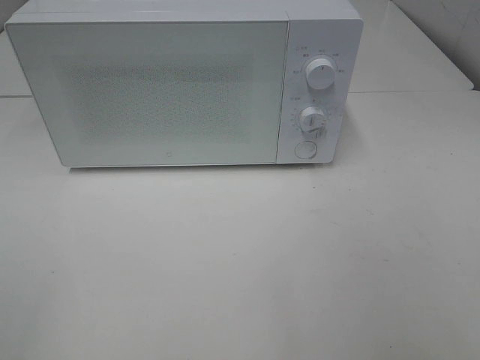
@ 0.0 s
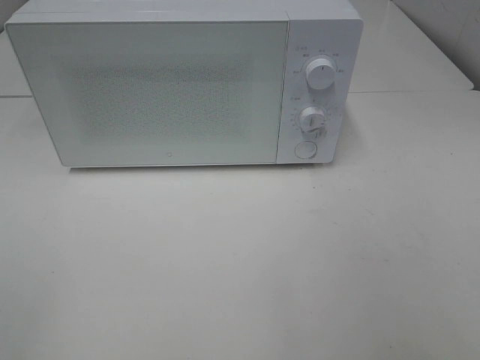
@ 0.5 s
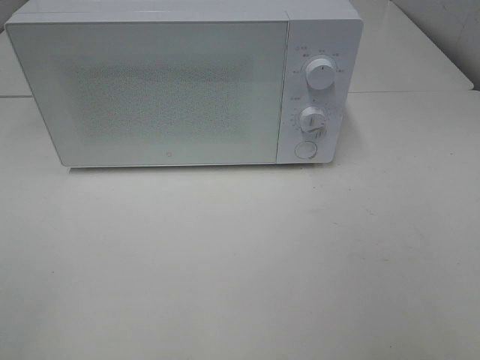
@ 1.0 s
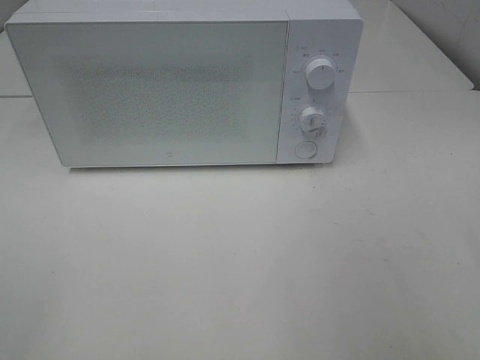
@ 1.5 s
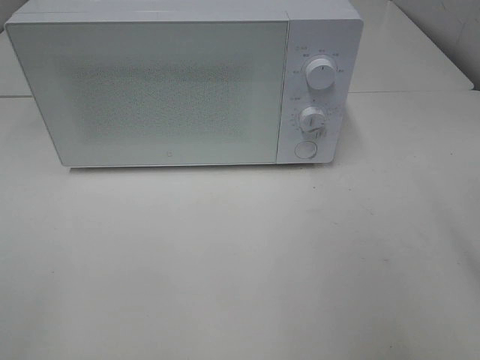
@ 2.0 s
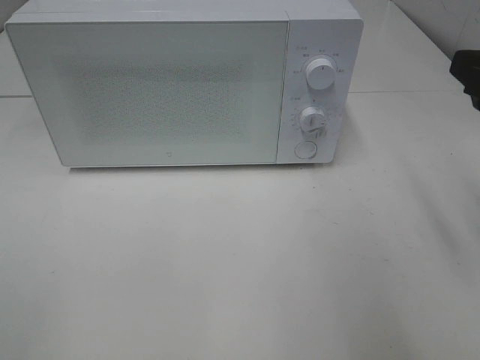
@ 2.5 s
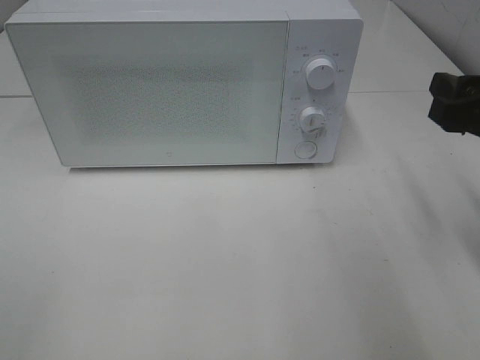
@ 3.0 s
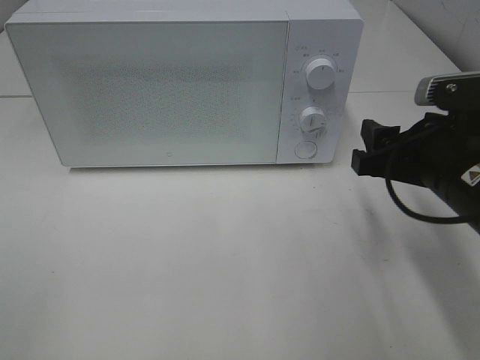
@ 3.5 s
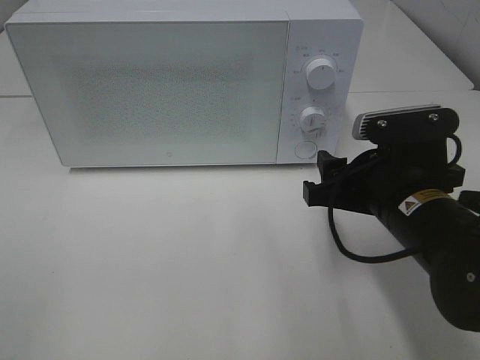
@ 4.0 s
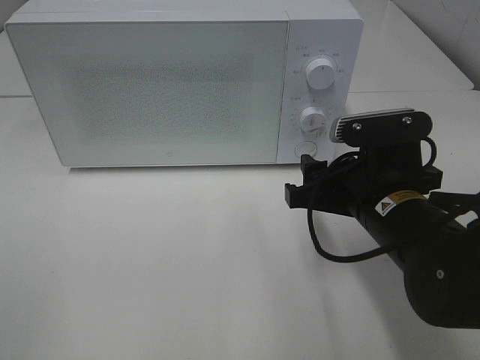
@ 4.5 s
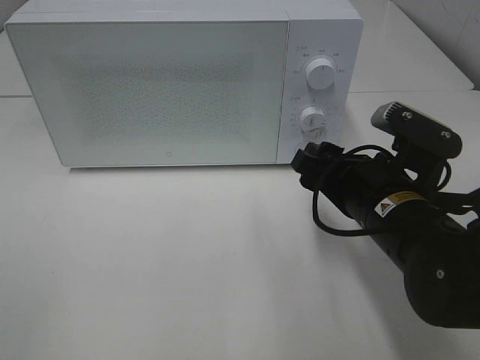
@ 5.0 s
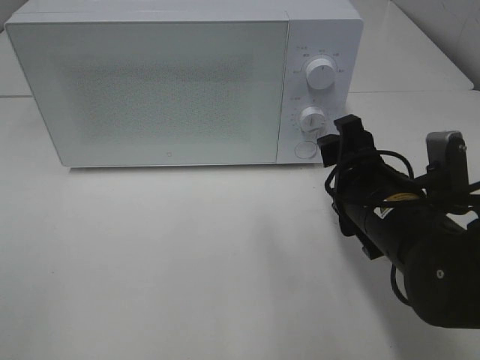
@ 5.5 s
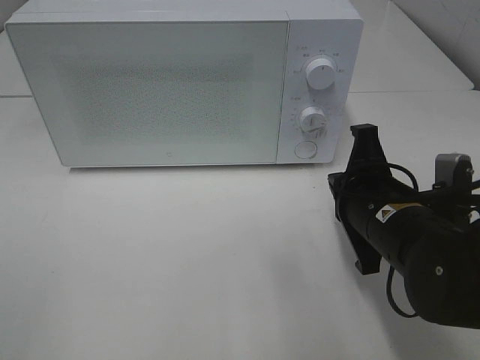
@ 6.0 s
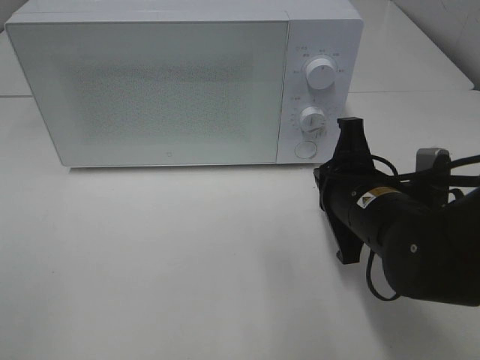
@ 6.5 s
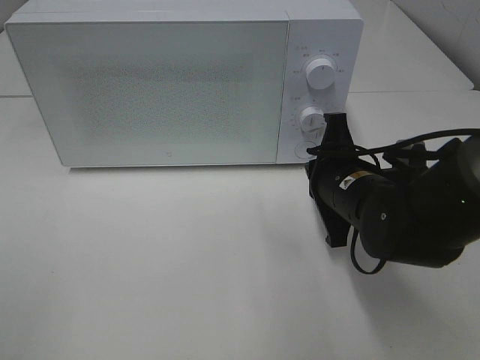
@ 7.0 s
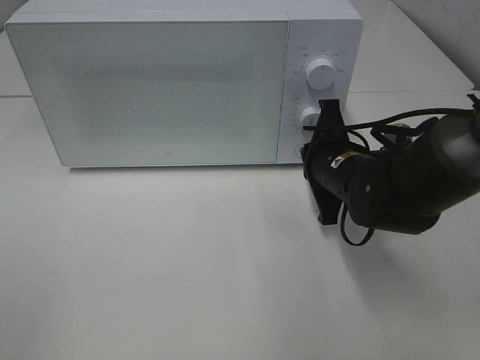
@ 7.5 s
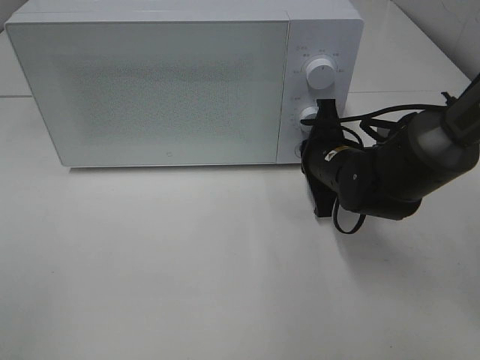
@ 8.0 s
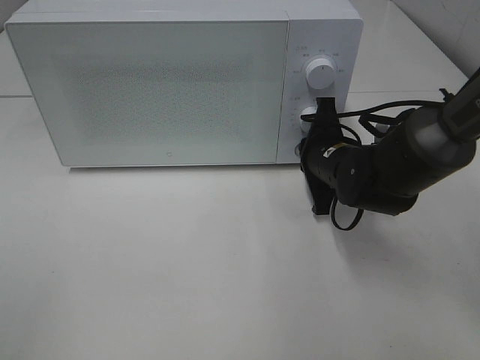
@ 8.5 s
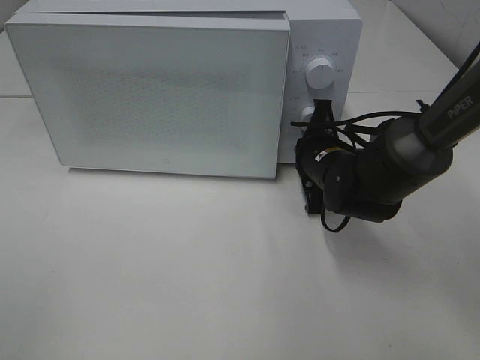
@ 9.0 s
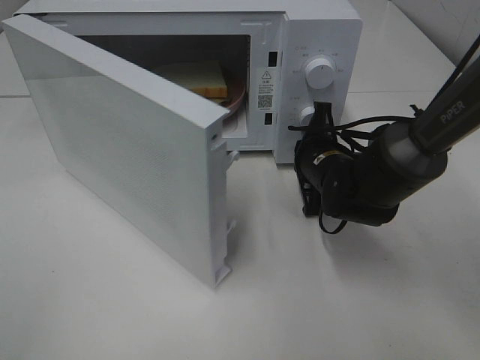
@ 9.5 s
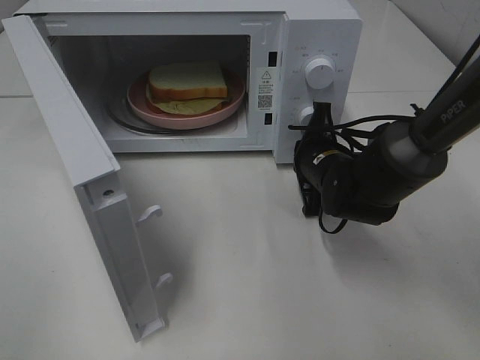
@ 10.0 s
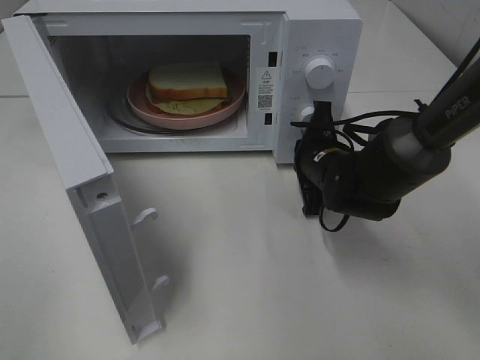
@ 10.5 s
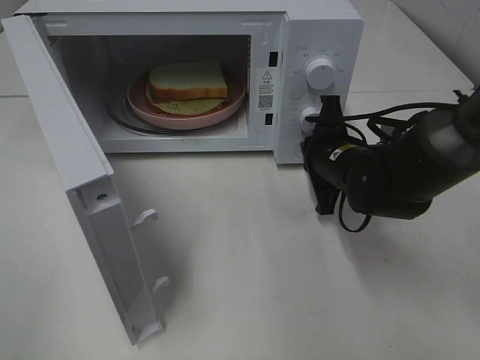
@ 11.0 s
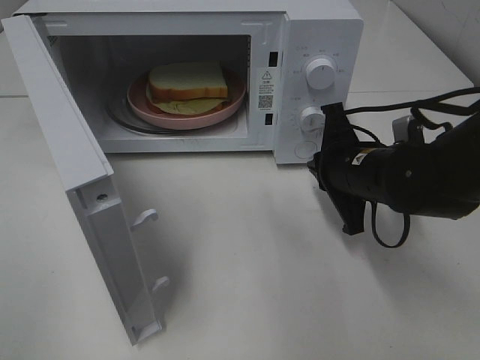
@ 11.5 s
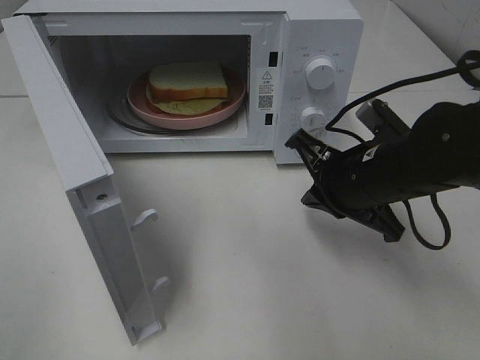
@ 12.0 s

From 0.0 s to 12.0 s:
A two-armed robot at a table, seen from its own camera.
Task of the whole recording: Heat Sandwich.
Step, from 0.0 s to 11.0 s: Right hand: press the switch.
From 2.0 s to 4.0 s: The right gripper heads downward, to the left and forward, covering about 20 cm.
From 4.0 s to 6.0 s: The right gripper closes up.
From 6.0 s to 8.0 s: The right gripper travels forward by about 10 cm.
From 10.0 s to 12.0 s: The right gripper shifts some 10 cm backward and upward.

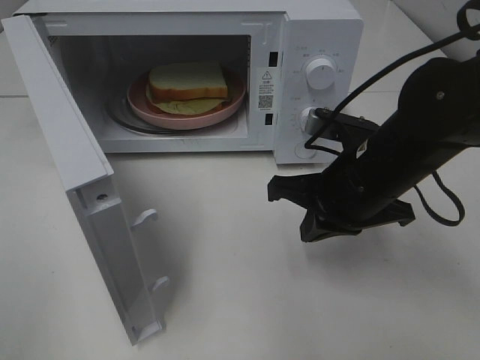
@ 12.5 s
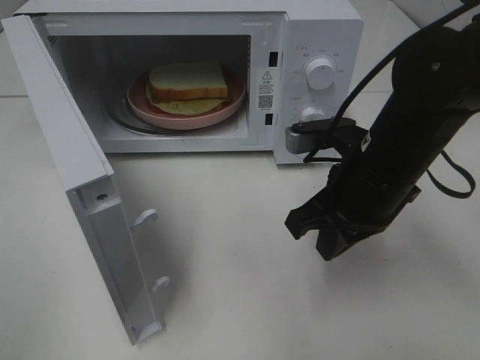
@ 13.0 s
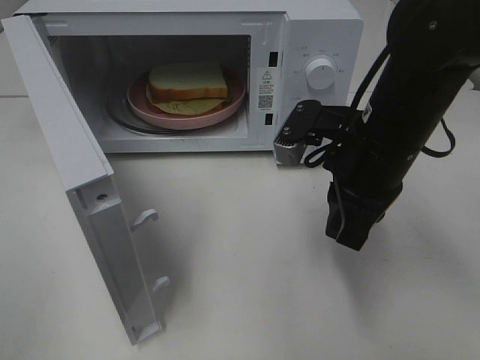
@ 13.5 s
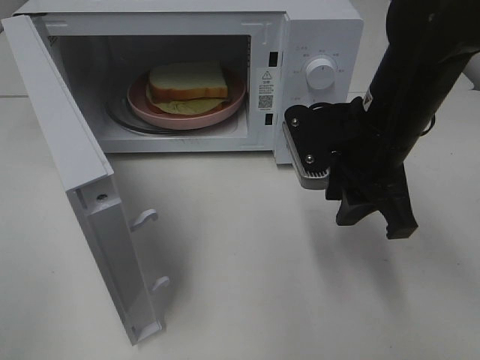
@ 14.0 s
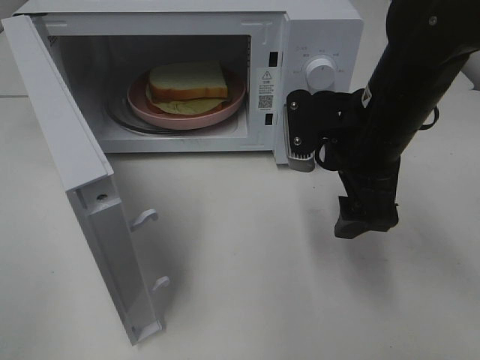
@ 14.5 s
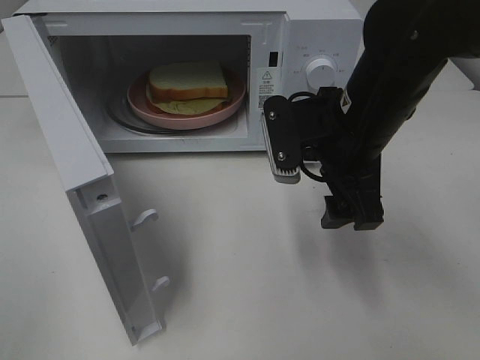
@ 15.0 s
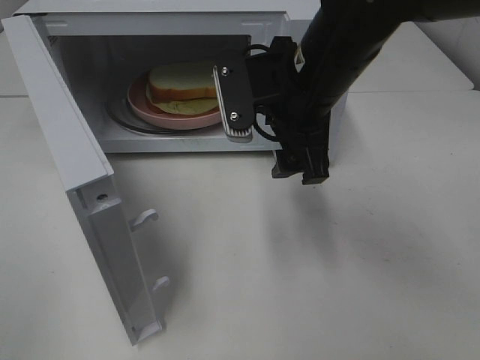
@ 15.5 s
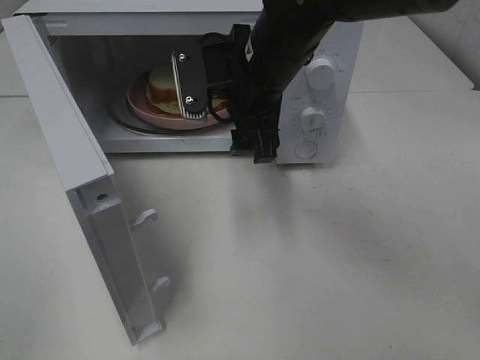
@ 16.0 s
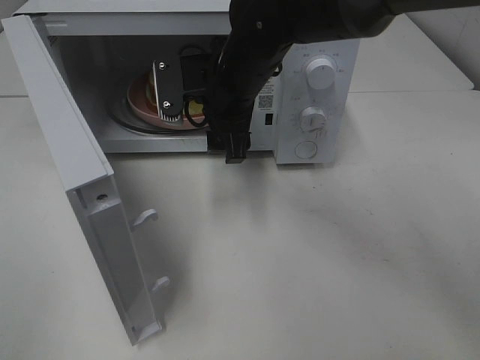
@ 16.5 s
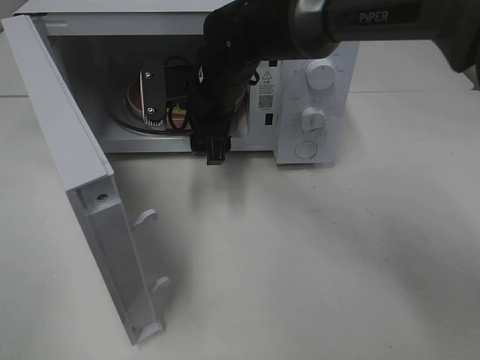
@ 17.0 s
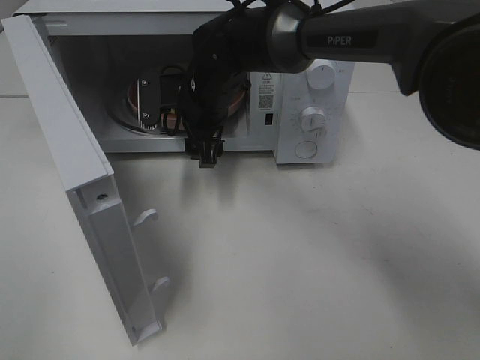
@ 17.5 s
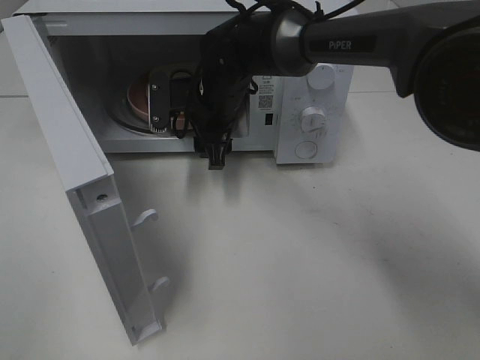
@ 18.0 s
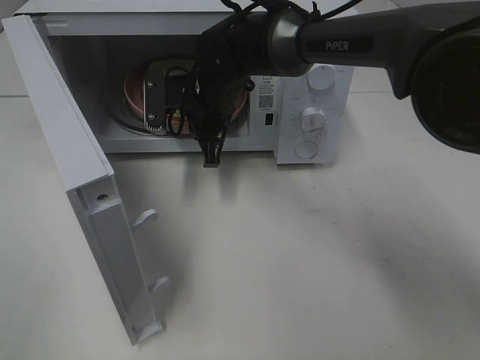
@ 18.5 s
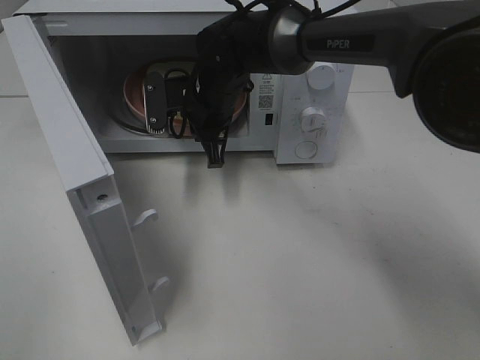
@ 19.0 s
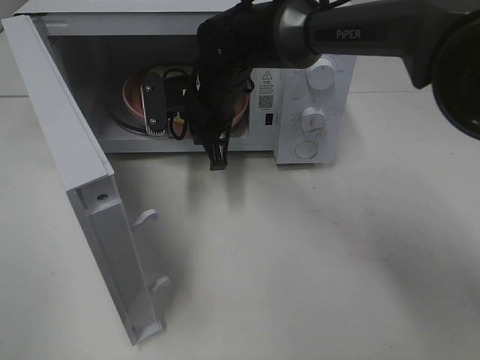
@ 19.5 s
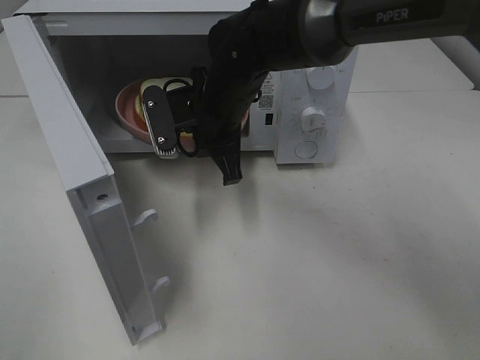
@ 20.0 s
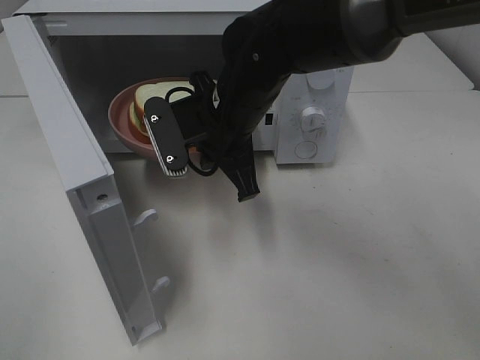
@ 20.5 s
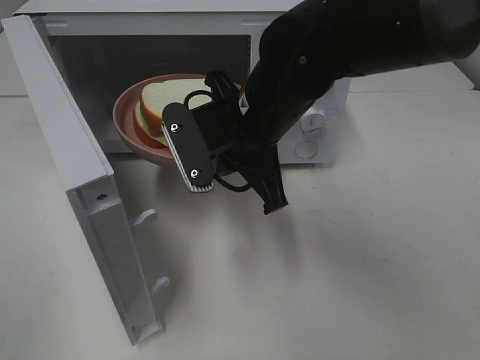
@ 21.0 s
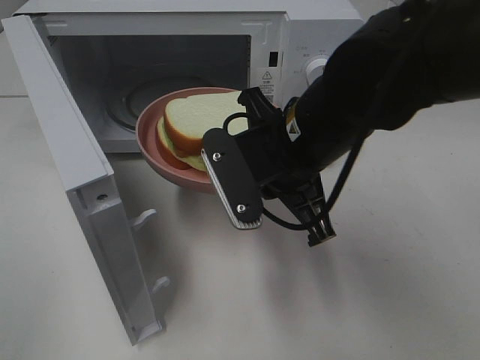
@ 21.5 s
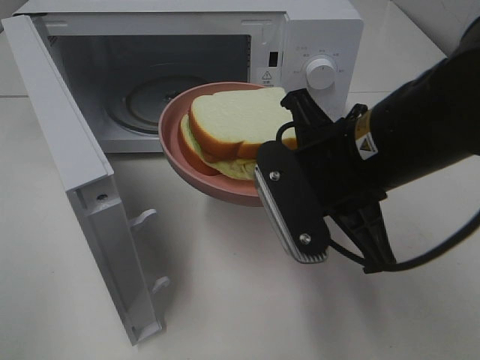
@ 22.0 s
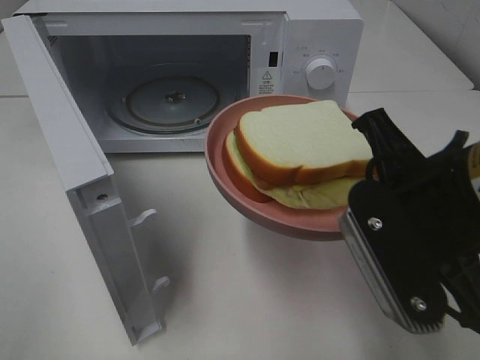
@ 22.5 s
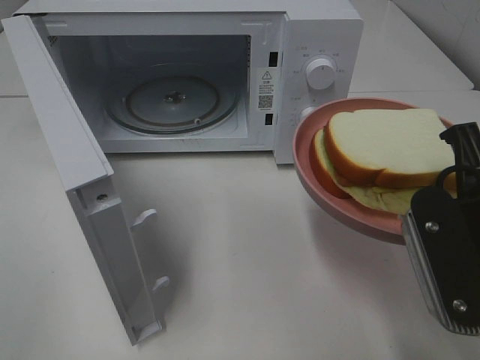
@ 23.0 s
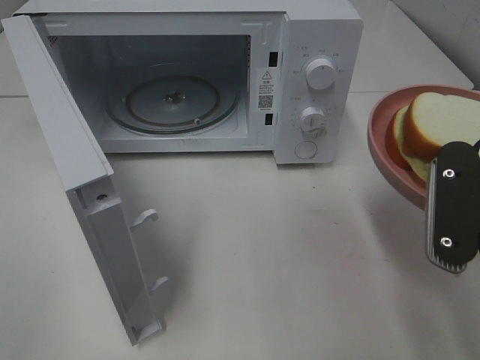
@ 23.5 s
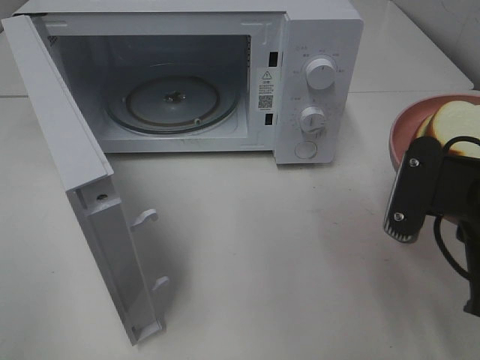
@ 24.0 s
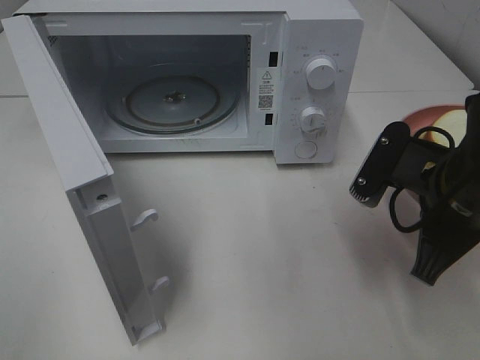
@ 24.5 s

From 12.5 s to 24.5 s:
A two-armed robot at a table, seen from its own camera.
Task of the whole recording: Heat Sandwich.
Step, from 12.5 s to 18.0 s: Right hand: grab the plate with the sandwich.
From 12.5 s to 14.5 s: The right gripper ends up about 5 cm from where it was, and opens its fingers.
From 14.5 s to 16.5 s: The right gripper travels to the left and forward by roughly 15 cm.
From 16.5 s to 18.5 s: The right gripper heads forward and downward, covering some 10 cm, and closes its fingers.
From 18.5 s to 20.5 s: The right gripper shifts some 10 cm backward.
From 20.5 s to 22.5 s: The right gripper travels backward and to the right by some 25 cm.
From 22.5 s to 24.5 s: The right gripper heads downward and forward, covering about 10 cm.

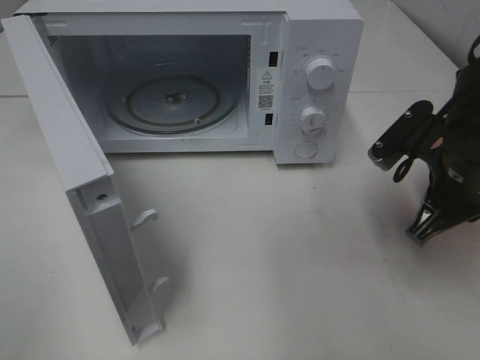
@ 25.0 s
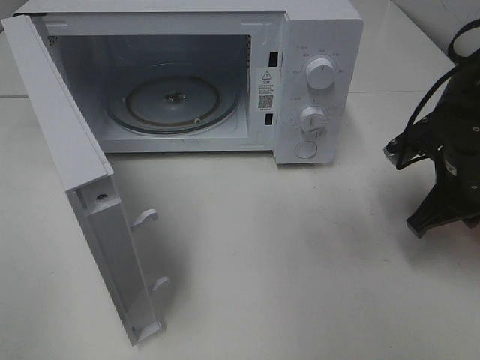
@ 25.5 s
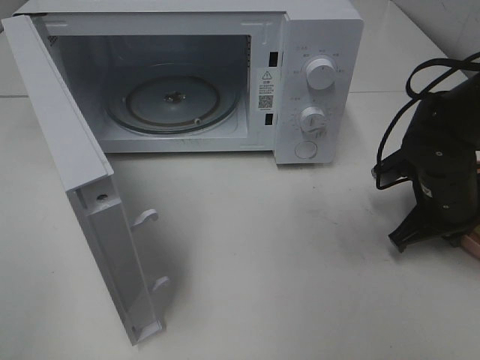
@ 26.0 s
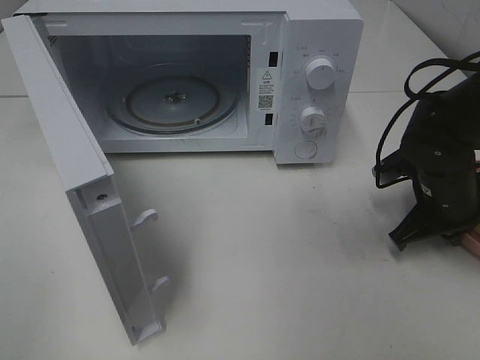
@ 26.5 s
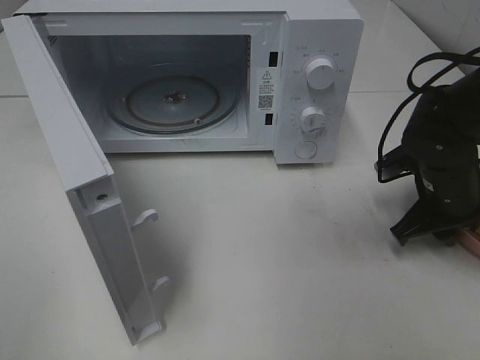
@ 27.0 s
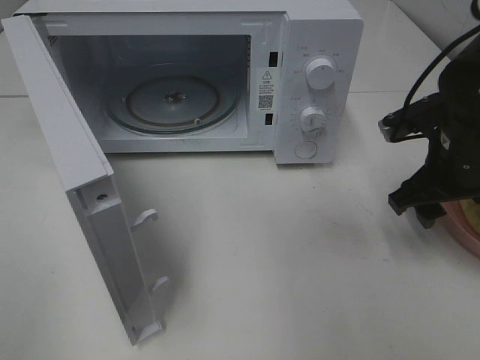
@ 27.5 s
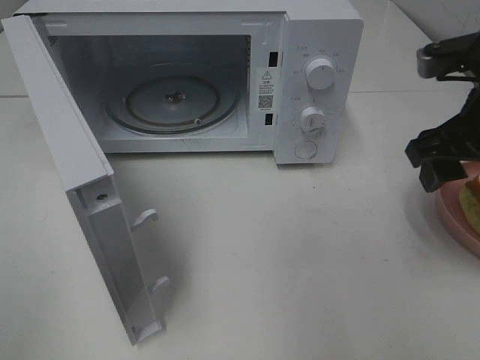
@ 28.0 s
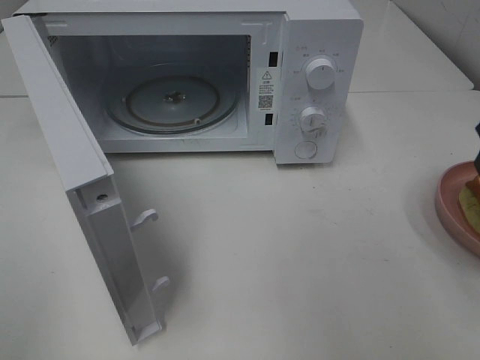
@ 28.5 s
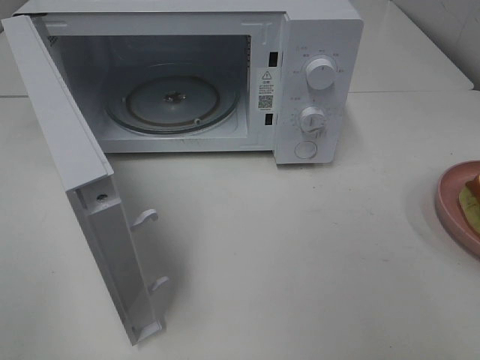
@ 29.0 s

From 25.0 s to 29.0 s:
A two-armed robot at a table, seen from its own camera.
Task of the whole recording: Heat Sandwich.
Step, from 25.0 s to 27.5 s: Right hand: place the plate on the table.
From 25.0 s to 27.0 s: The right gripper moves downward, about 5 cm, and opens up.
From 27.0 s to 29.0 s: The right gripper heads upward and backward, covering roughly 30 cm, and opens its fingers.
